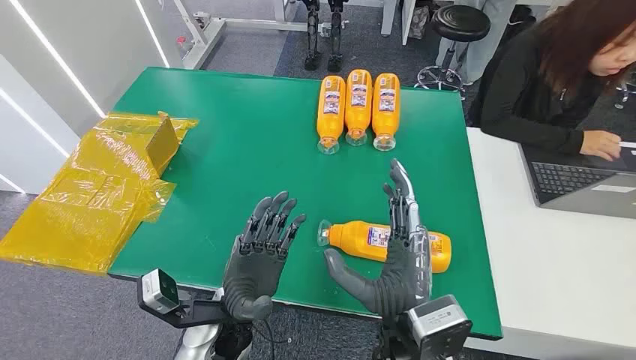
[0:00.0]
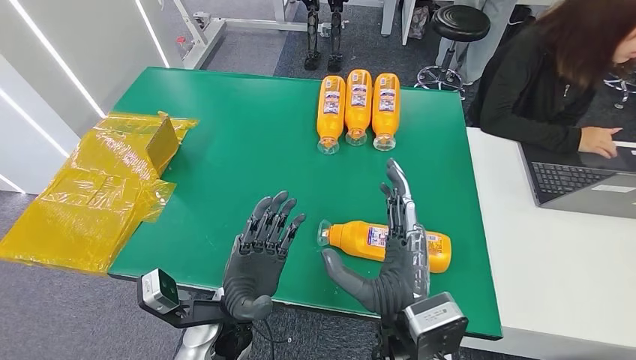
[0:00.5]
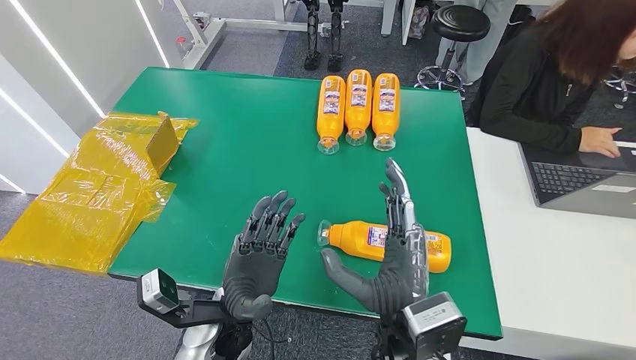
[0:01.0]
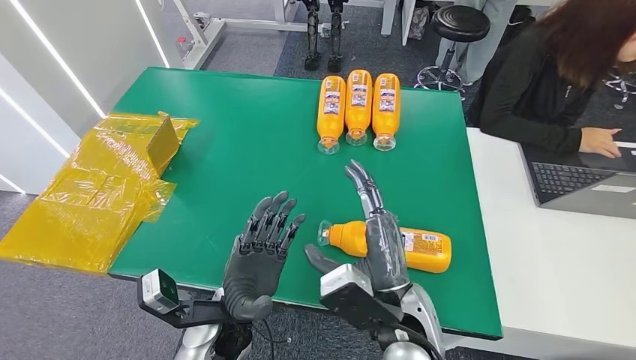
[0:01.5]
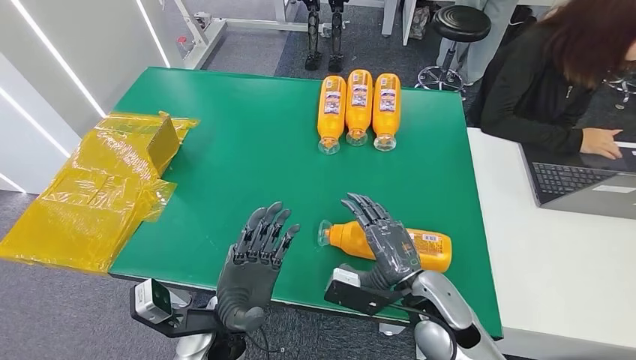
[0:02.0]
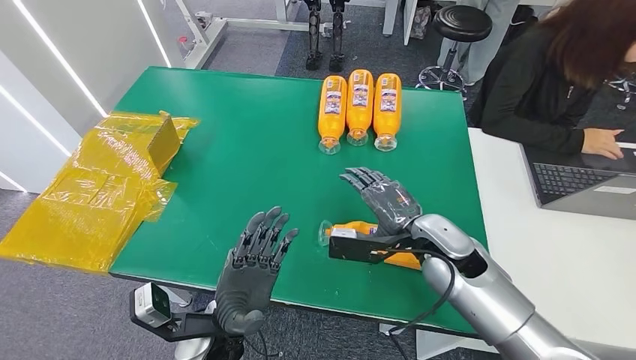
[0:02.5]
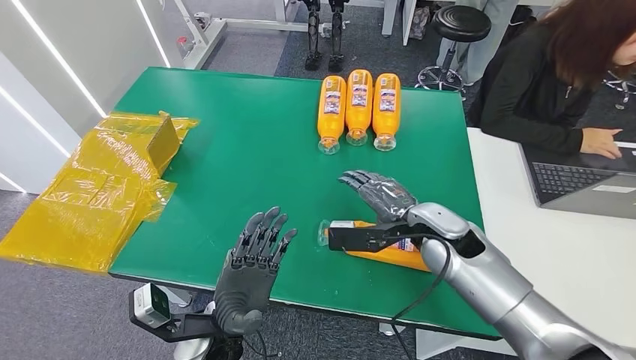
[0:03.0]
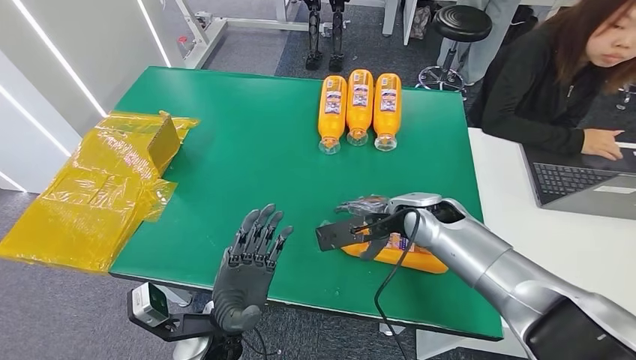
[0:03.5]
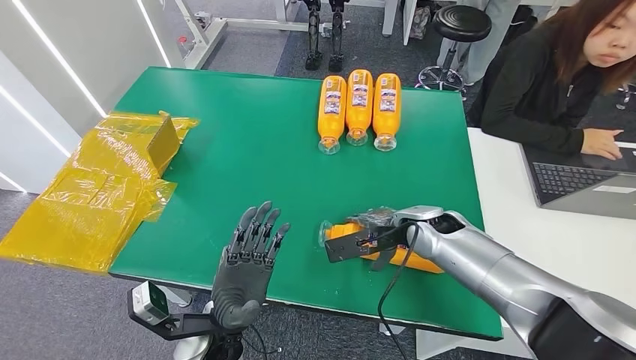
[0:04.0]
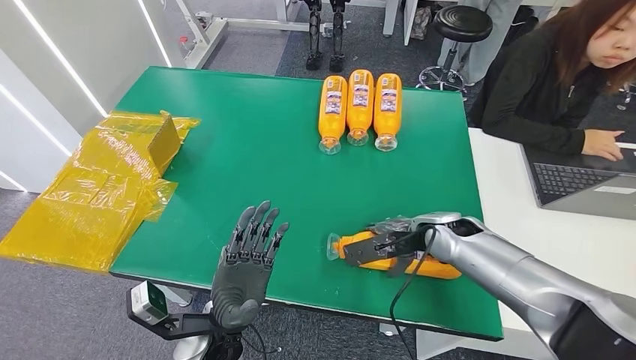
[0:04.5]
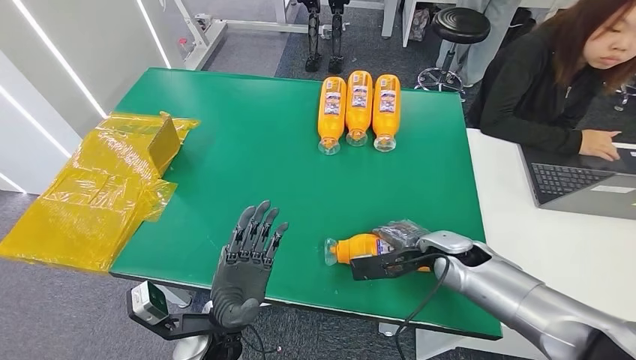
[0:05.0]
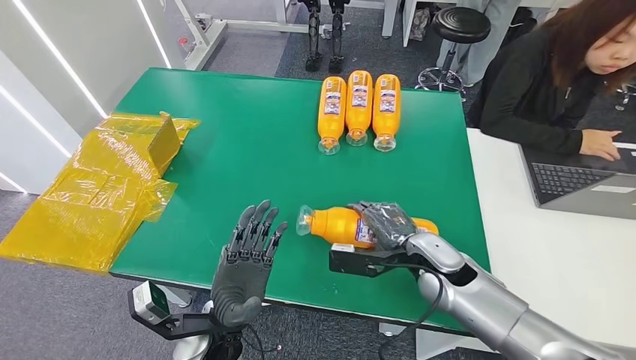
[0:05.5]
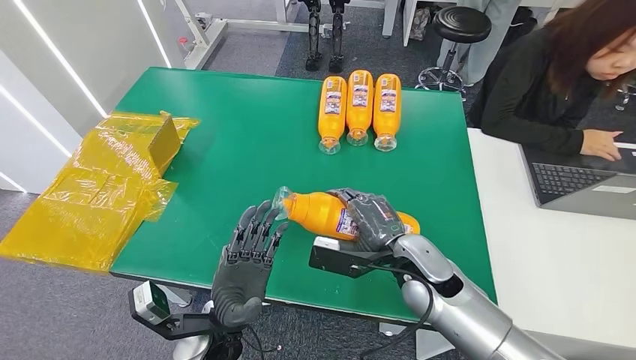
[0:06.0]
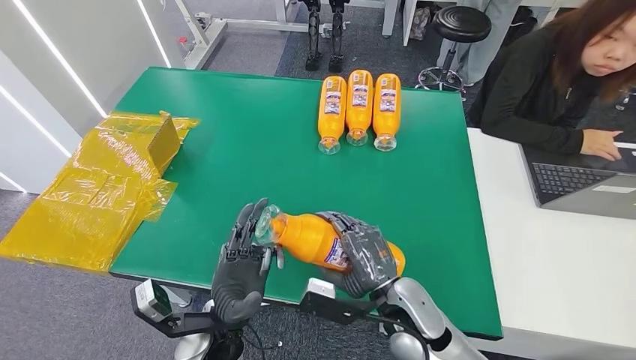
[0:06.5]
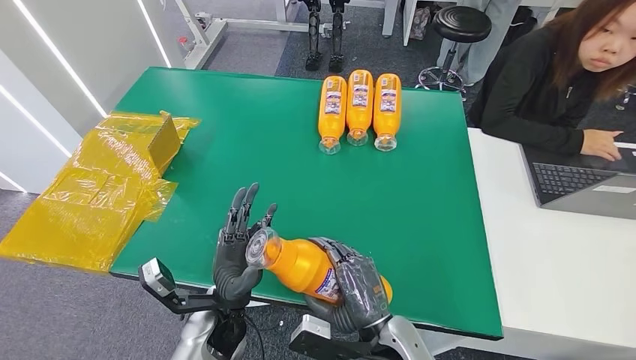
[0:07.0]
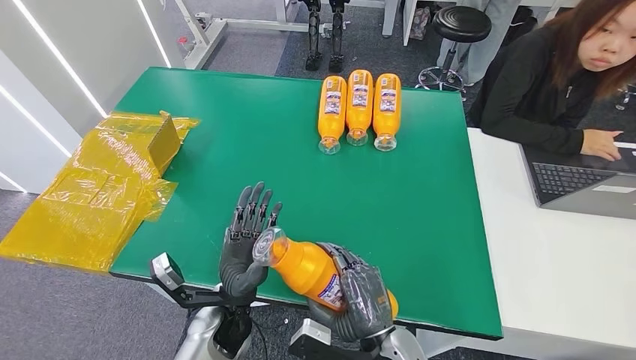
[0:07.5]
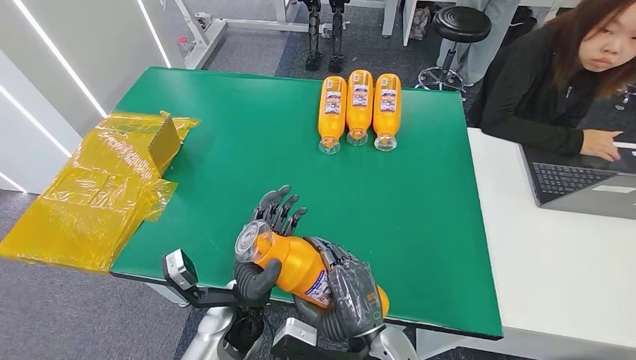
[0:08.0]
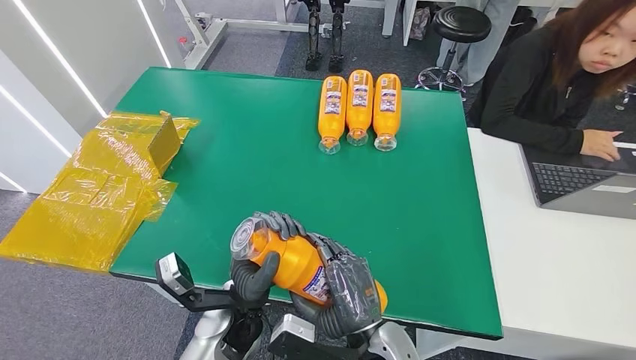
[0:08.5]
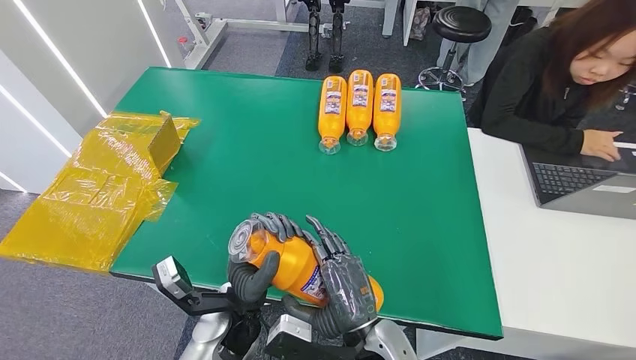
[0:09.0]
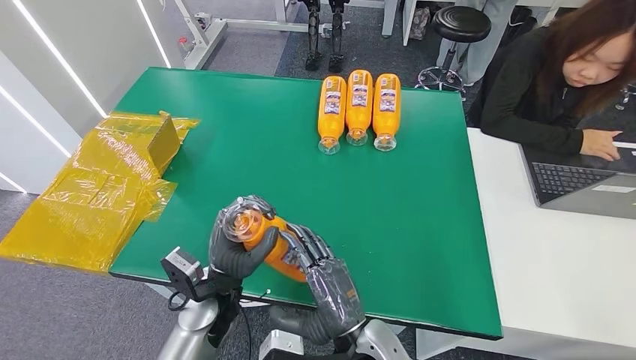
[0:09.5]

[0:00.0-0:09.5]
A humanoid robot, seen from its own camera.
Step, 0:00.0 to 0:06.5: Pick up the bottle from the table.
0:02.0 to 0:04.0: The right hand travels forward by approximately 15 cm.
0:04.0 to 0:05.5: The right hand heads backward, covering roughly 5 cm.
0:05.5 to 0:07.5: The right hand is displaced backward and to the left by roughly 20 cm.

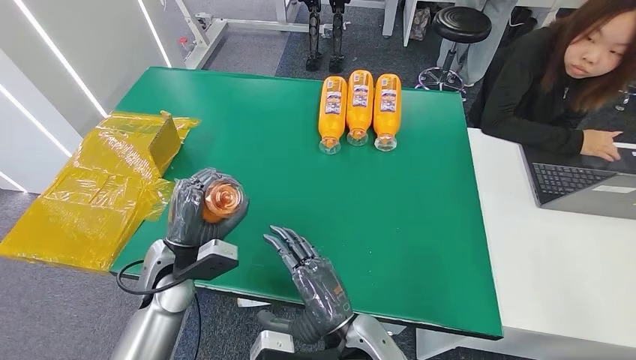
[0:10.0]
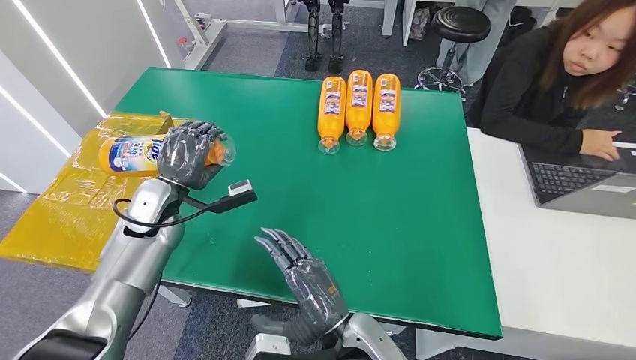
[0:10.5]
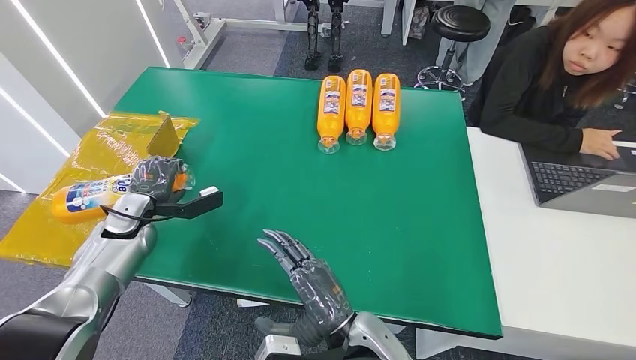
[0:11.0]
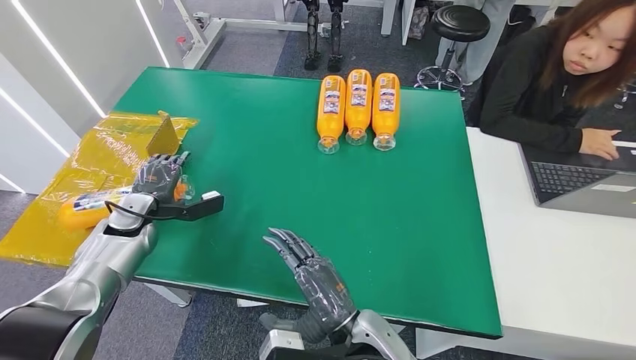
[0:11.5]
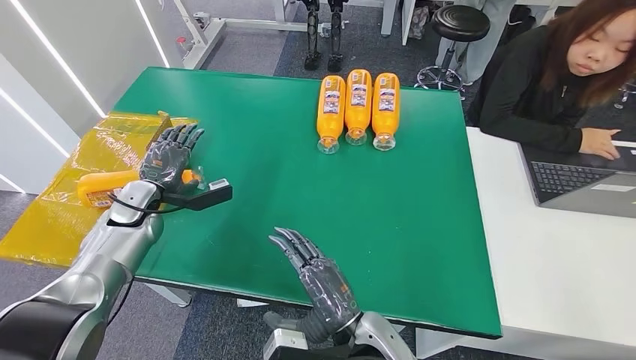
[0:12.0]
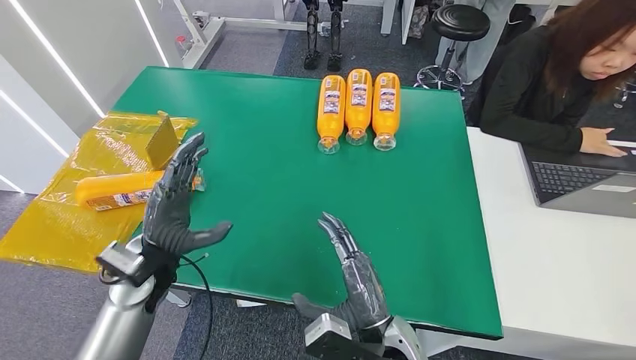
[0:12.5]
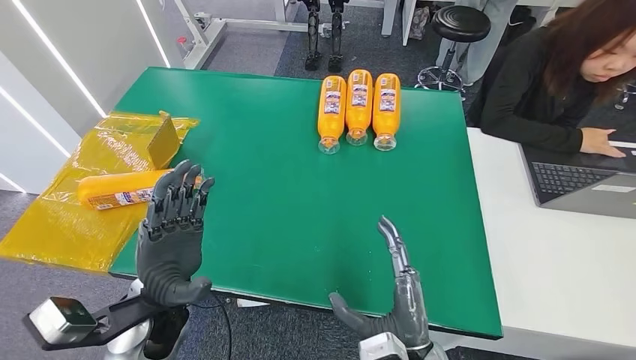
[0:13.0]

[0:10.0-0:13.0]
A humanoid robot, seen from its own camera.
Step, 0:10.0 to 0:13.0: Turn the bottle to the front side.
0:10.0 to 0:11.5: The left hand is displaced to the left and forward by approximately 20 cm.
0:11.5 to 0:13.0: The right hand goes some 5 cm to the right. The left hand is displaced to the right and backward by about 25 cm.

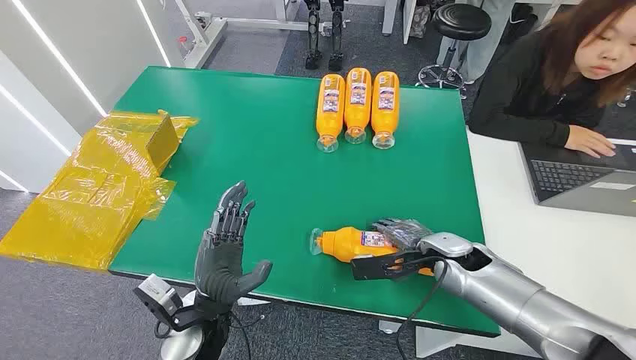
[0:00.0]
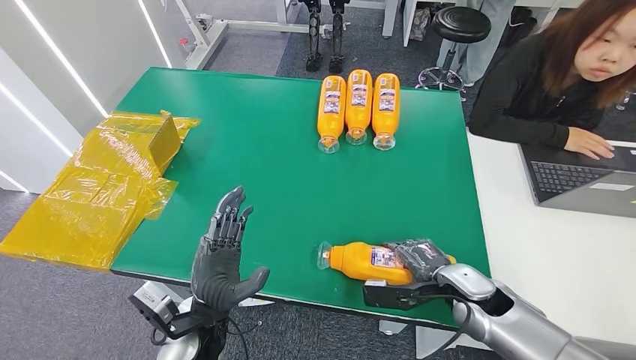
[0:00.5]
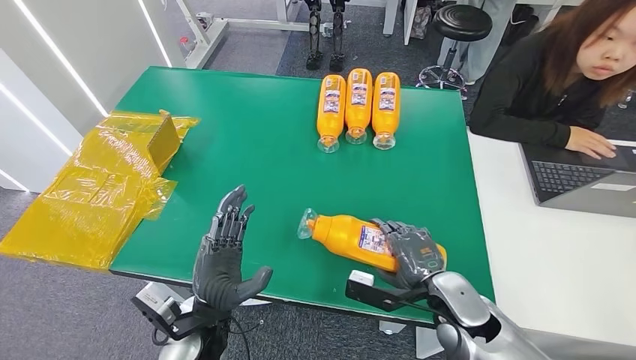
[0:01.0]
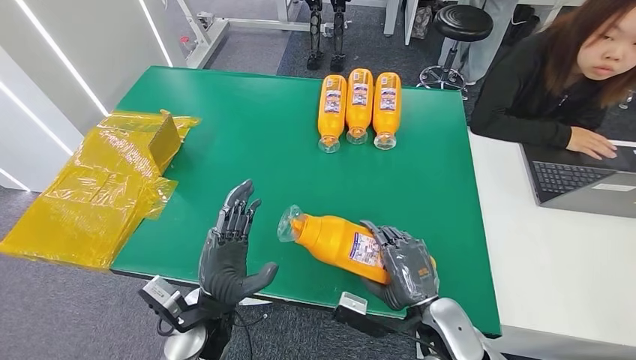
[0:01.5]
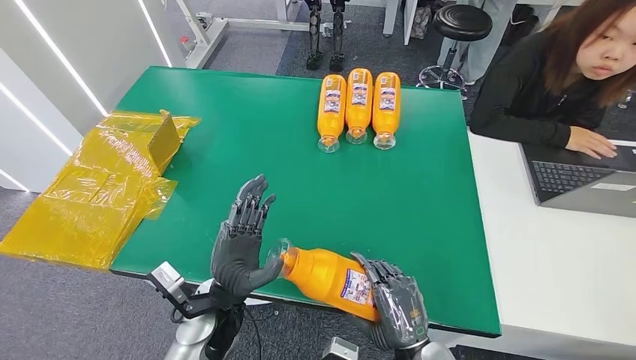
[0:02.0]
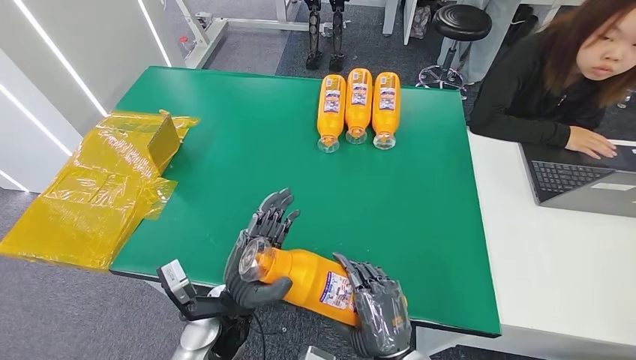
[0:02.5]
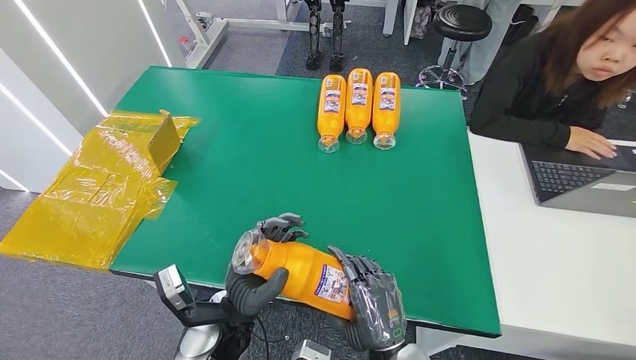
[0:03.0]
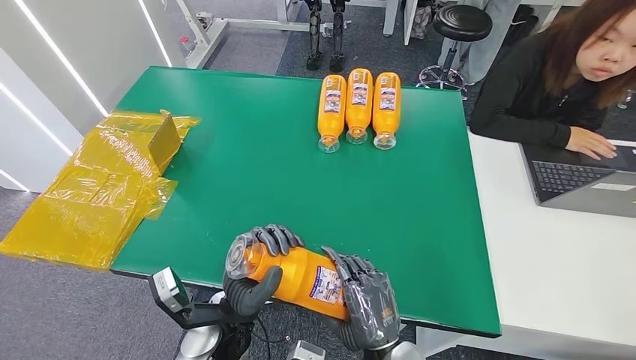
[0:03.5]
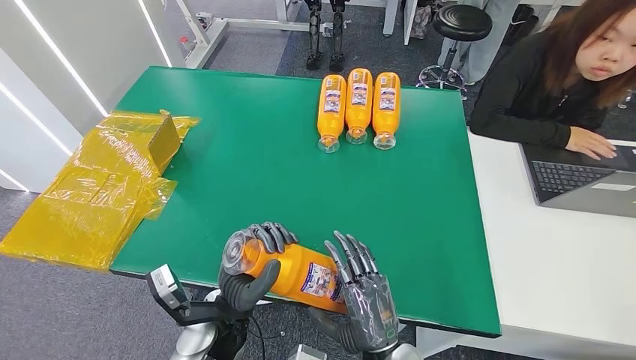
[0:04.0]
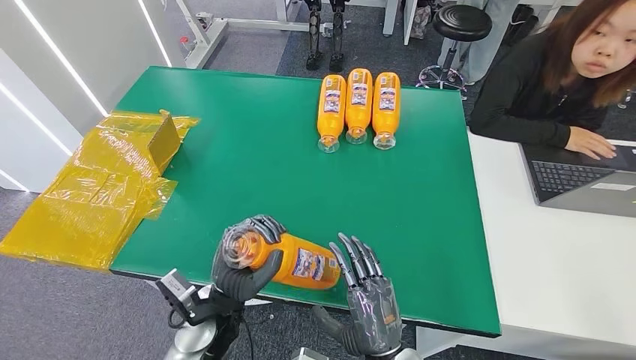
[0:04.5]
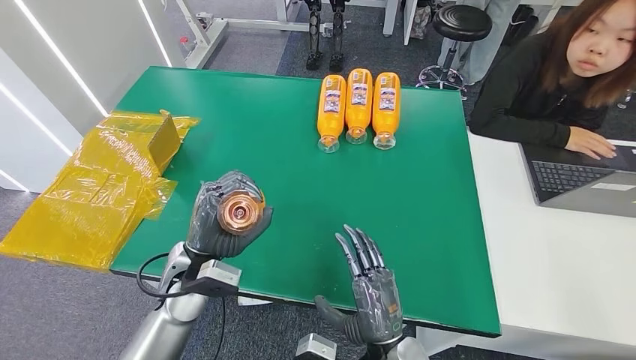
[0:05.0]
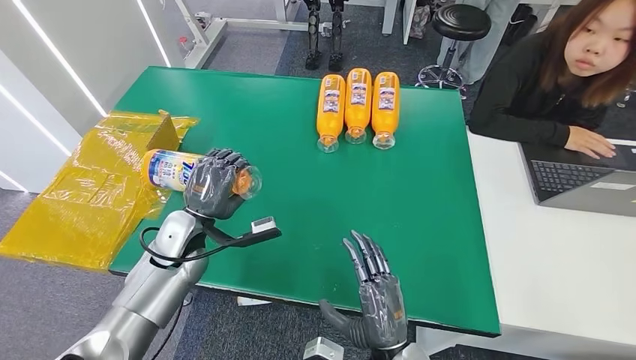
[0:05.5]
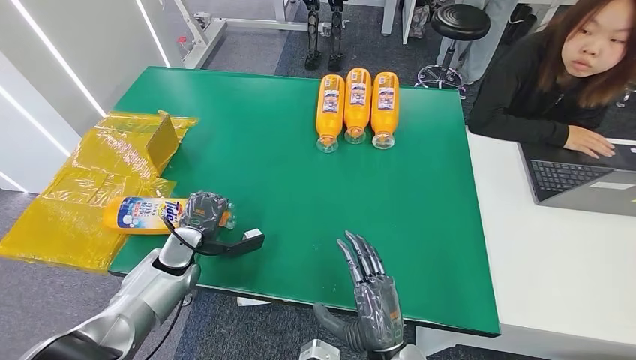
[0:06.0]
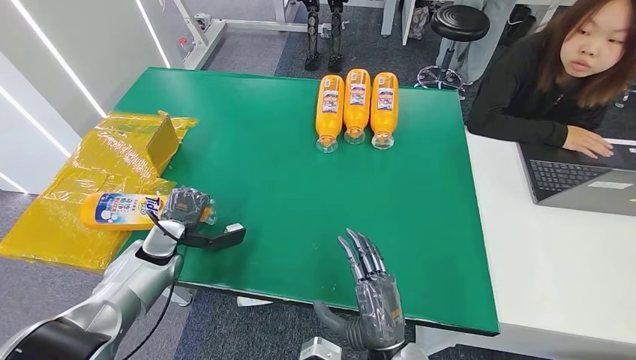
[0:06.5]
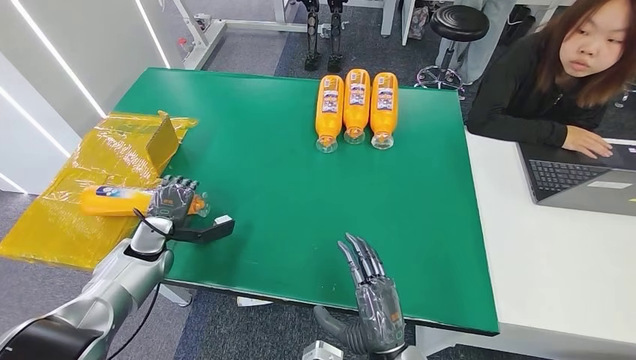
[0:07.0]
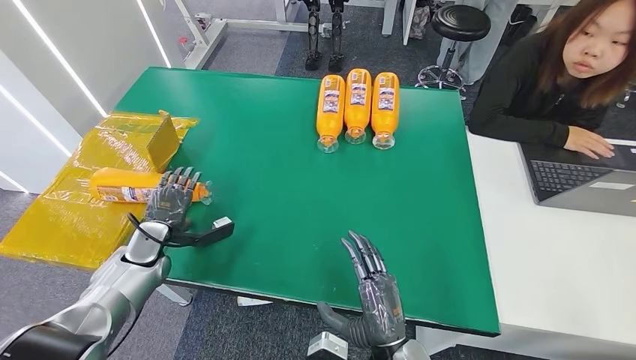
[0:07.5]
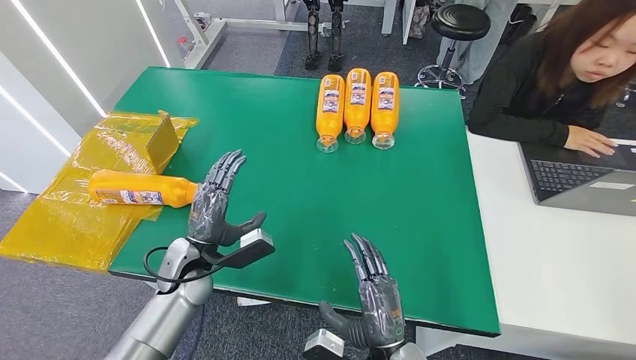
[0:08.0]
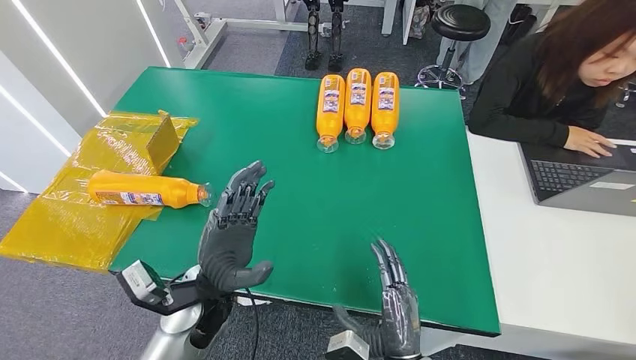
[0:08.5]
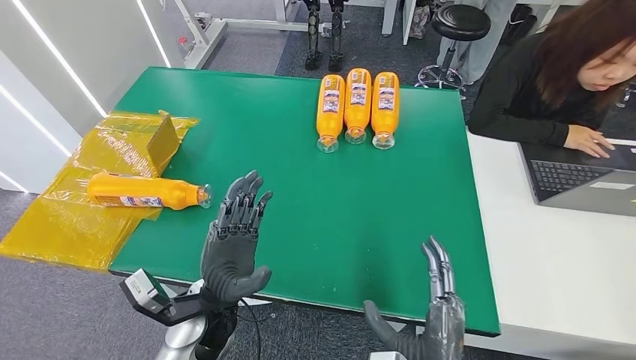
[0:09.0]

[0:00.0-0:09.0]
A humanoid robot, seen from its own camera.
Step, 0:00.0 to 0:02.5: Pick up the bottle from the table.
Step, 0:03.0 to 0:09.0: Turn the bottle to the front side.
0:02.0 to 0:04.5: The right hand moves to the left, roughly 5 cm.
0:04.5 to 0:07.0: The left hand is displaced to the left and forward by roughly 25 cm.
0:07.0 to 0:09.0: The right hand changes place by approximately 5 cm. The left hand is displaced to the right and backward by about 25 cm.
